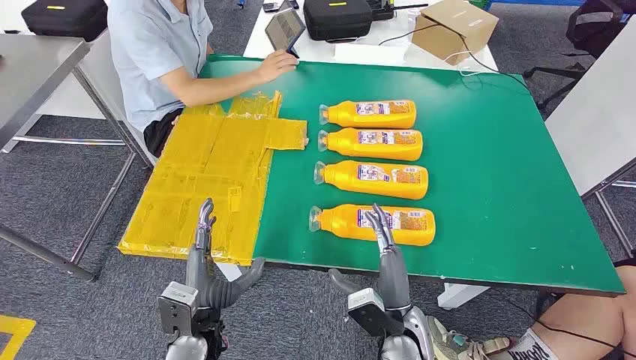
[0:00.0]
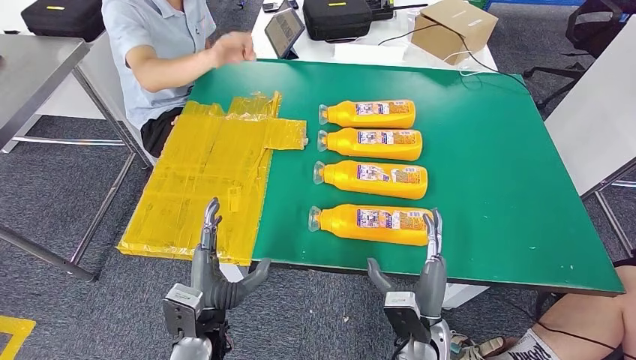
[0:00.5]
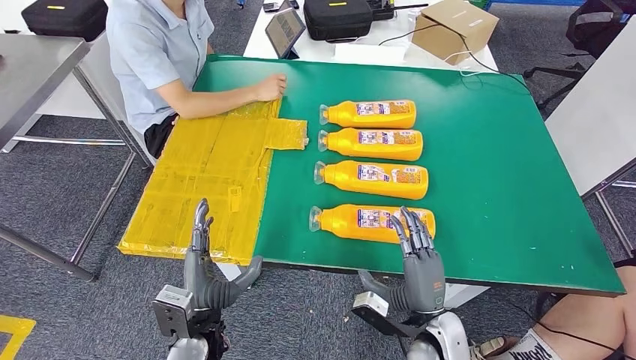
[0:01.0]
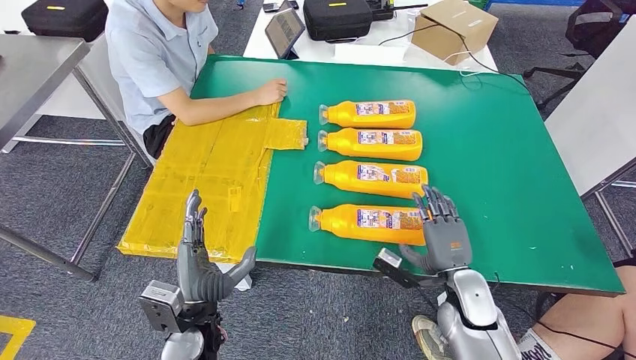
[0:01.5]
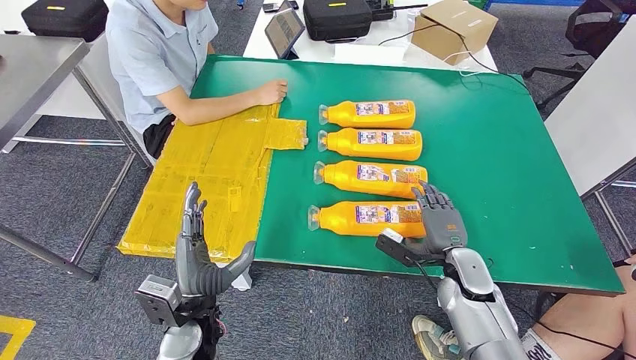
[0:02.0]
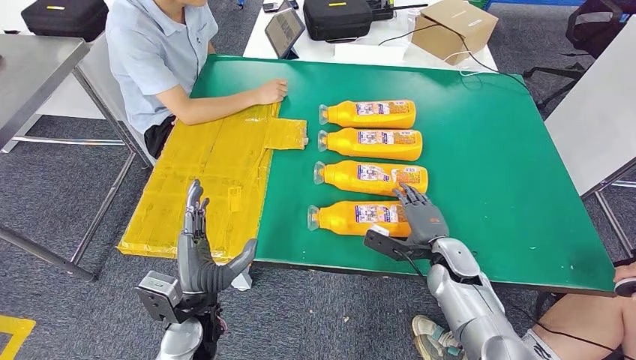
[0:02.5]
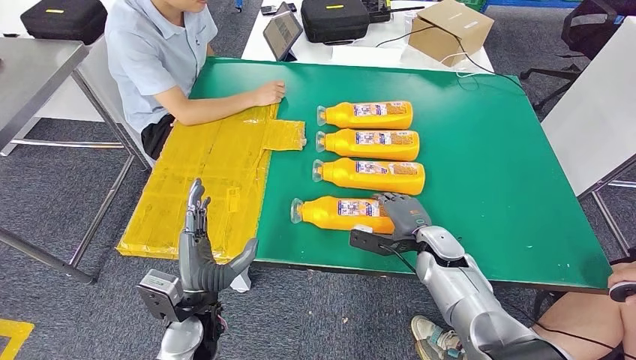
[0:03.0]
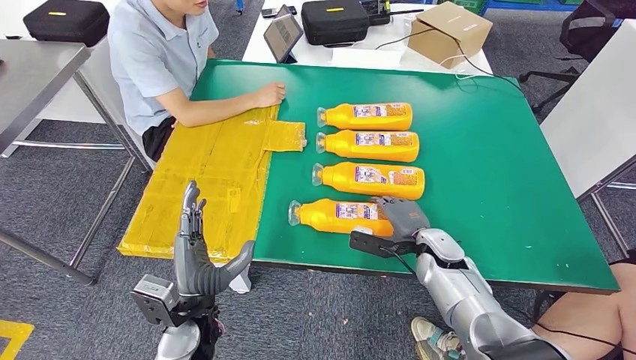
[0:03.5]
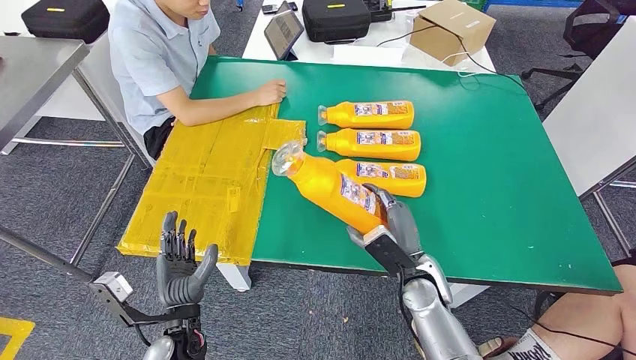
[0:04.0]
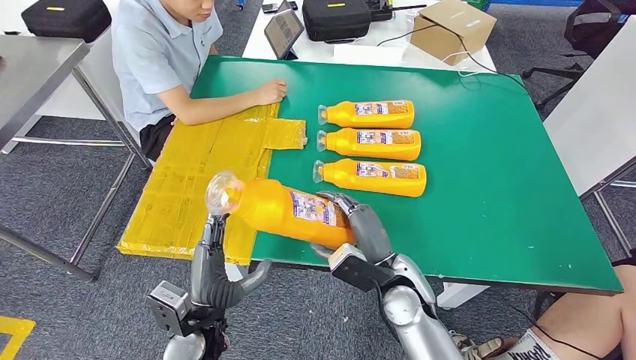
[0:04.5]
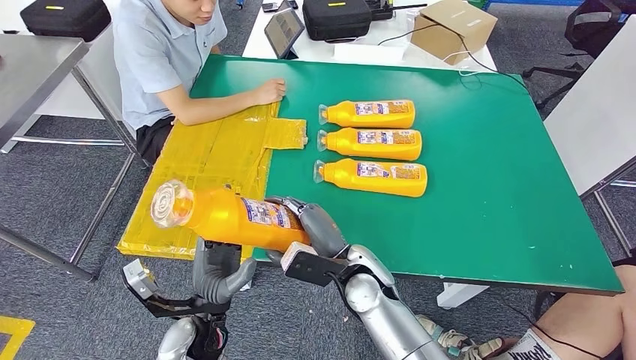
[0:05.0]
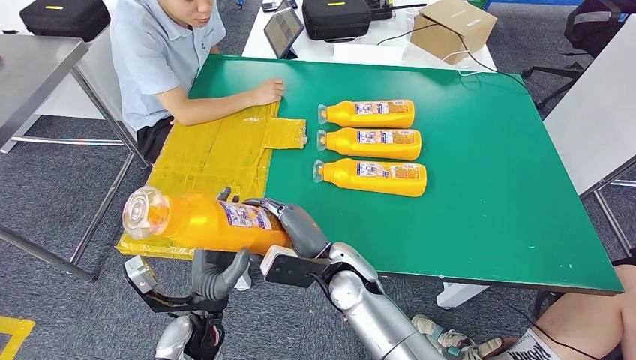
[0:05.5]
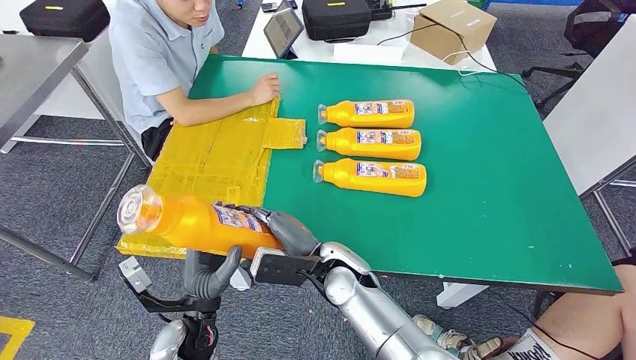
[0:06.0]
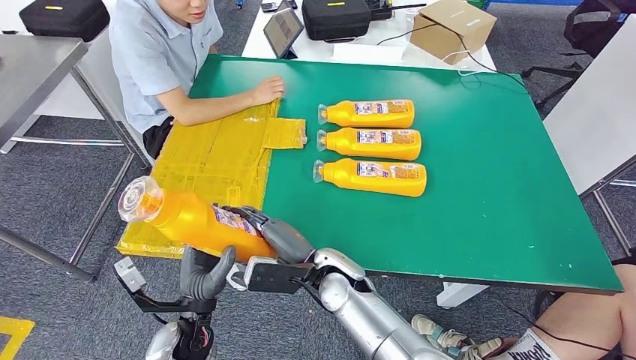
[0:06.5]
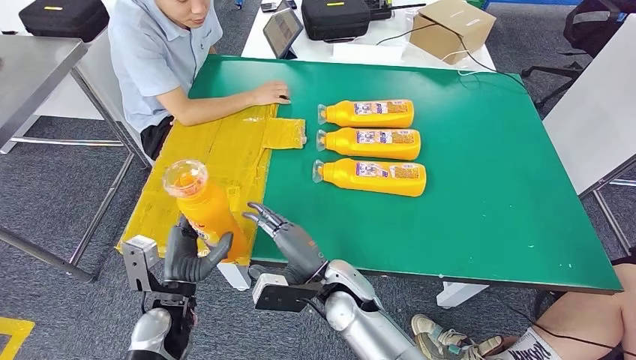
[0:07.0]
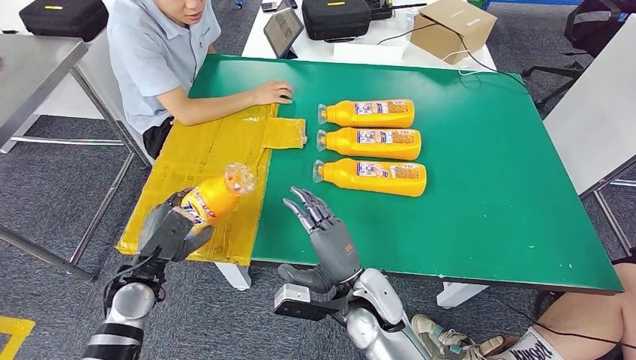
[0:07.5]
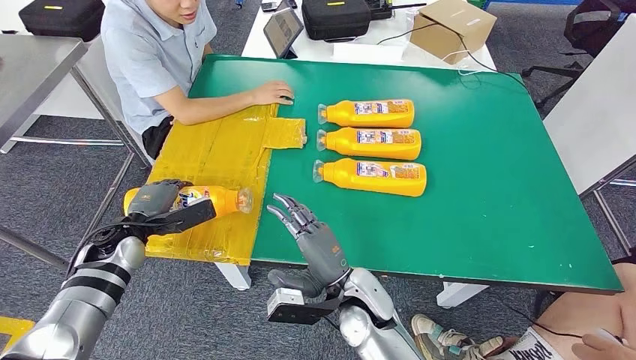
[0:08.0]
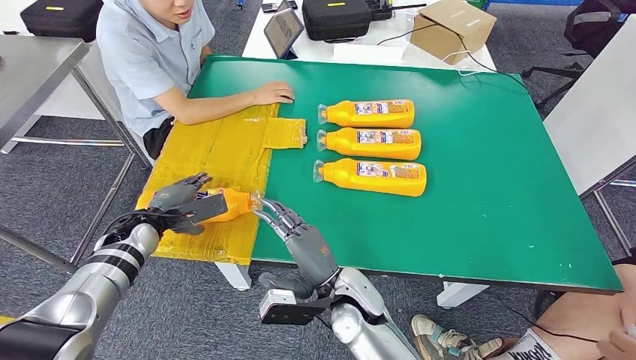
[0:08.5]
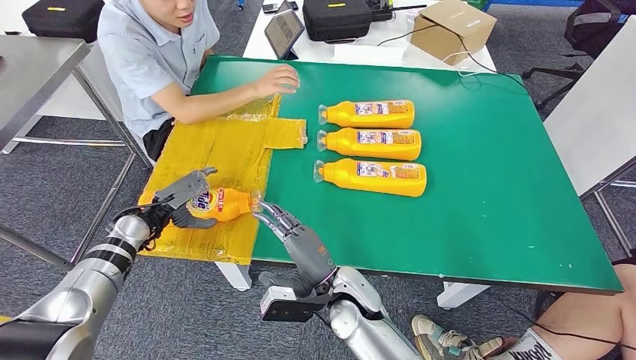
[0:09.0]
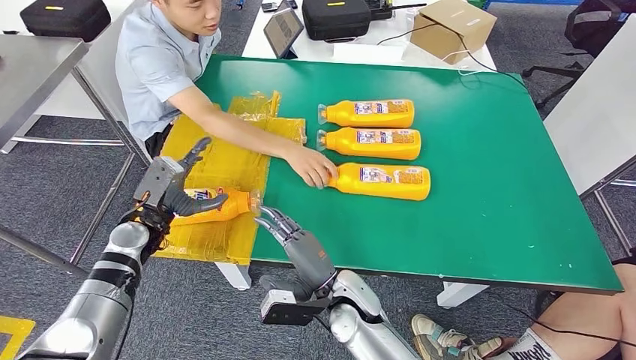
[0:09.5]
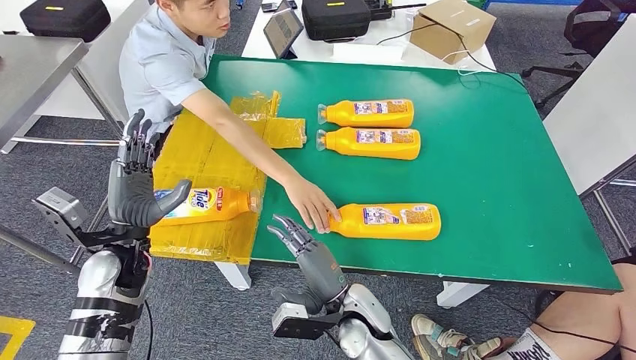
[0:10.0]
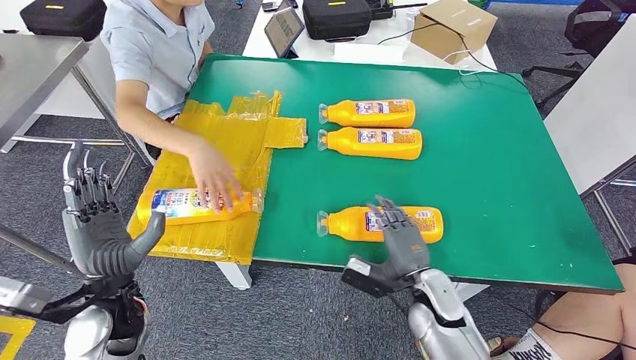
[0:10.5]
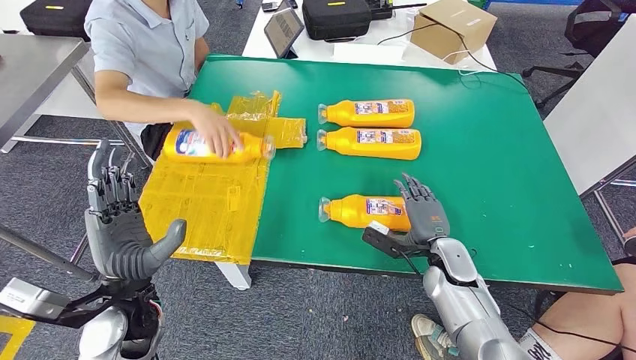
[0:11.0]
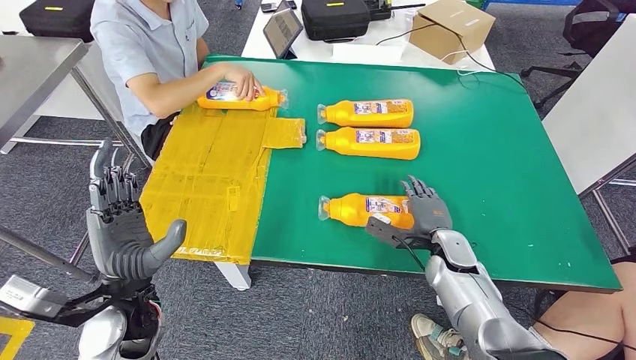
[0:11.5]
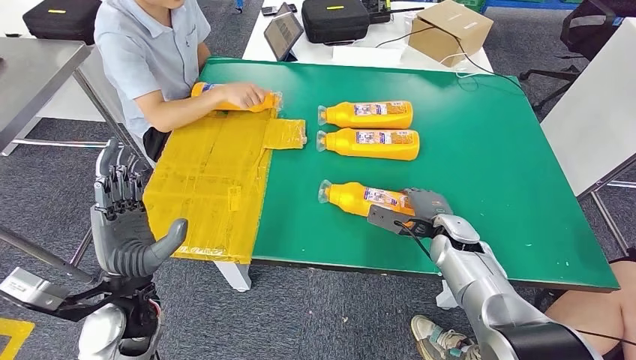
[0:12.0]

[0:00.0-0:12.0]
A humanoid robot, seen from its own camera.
Step, 0:00.0 to 0:04.0: Take the fast-moving consumer goods bottle from the table.
Step, 0:04.5 to 0:09.5: Flip the fast-moving consumer goods bottle to the front side.
0:02.0 to 0:04.0: The right hand travels to the left by some 10 cm.
0:04.0 to 0:06.0: The right hand heads to the left, covering roughly 15 cm.
0:06.0 to 0:08.0: The left hand shifts roughly 20 cm to the left and forward, while the right hand changes place by about 5 cm.

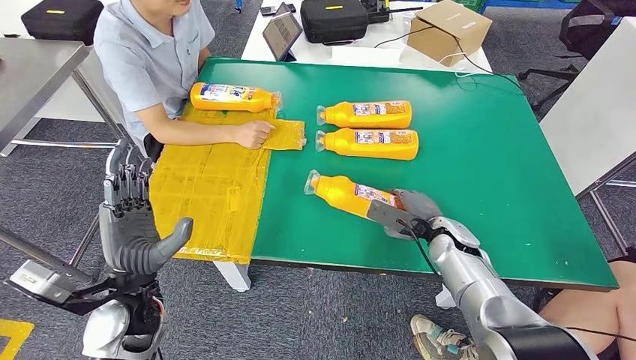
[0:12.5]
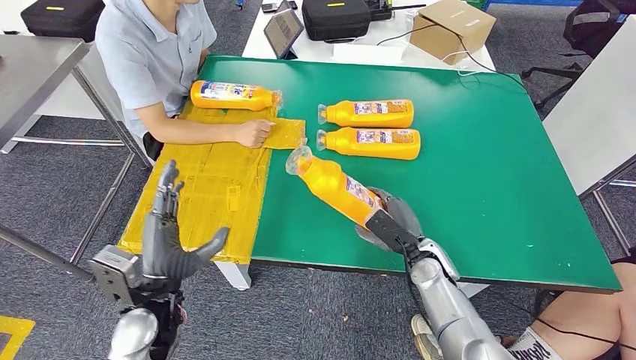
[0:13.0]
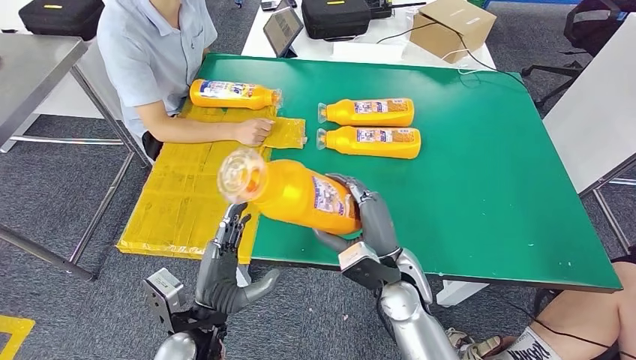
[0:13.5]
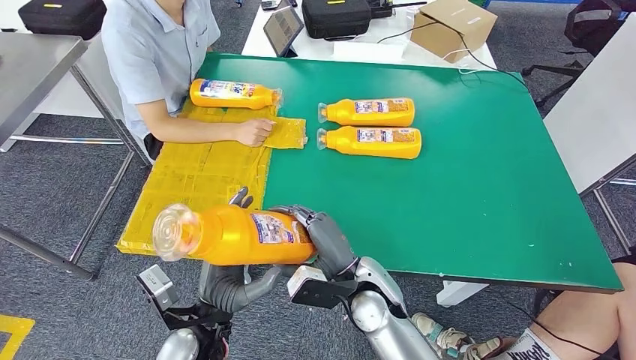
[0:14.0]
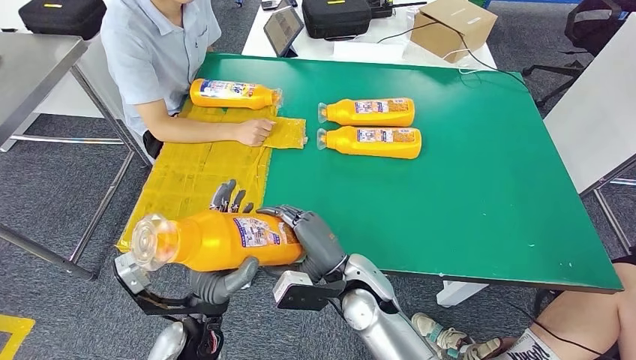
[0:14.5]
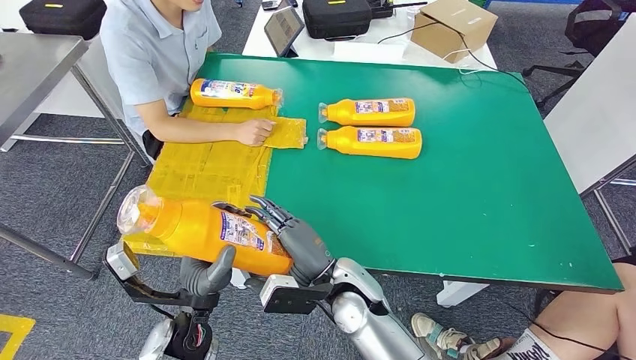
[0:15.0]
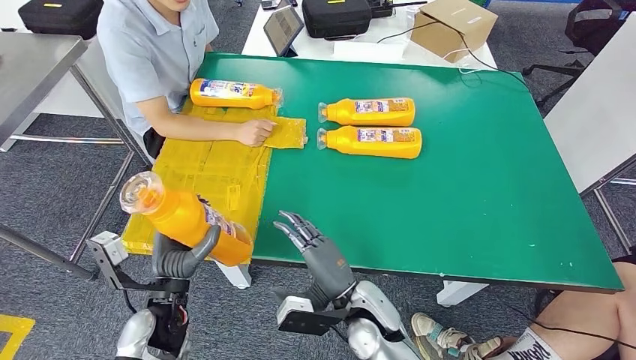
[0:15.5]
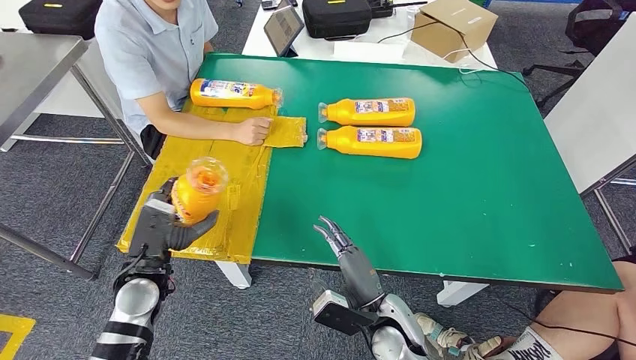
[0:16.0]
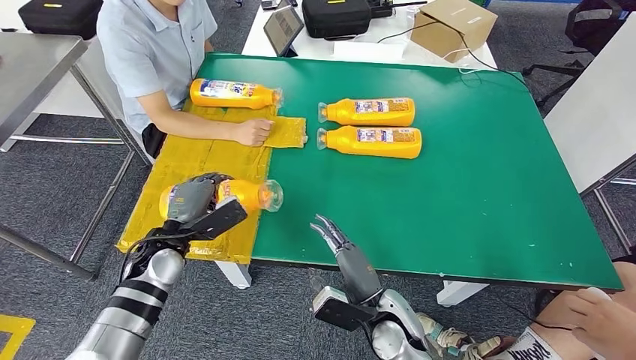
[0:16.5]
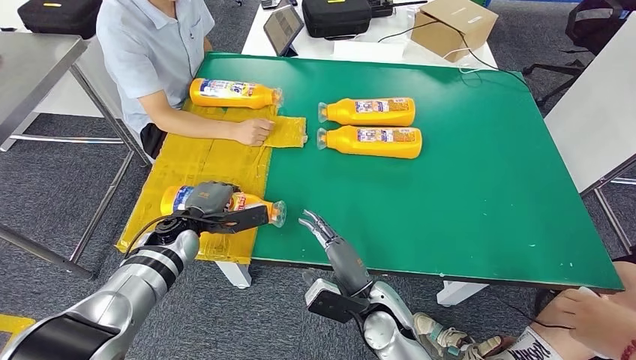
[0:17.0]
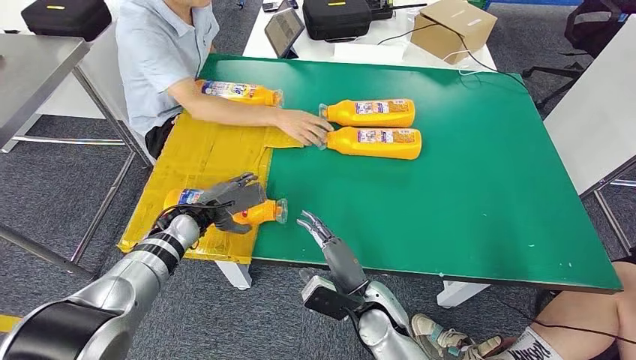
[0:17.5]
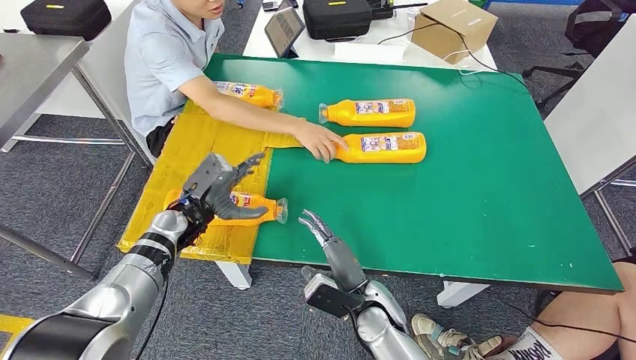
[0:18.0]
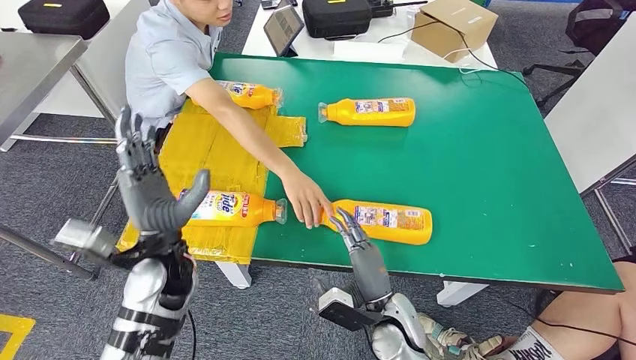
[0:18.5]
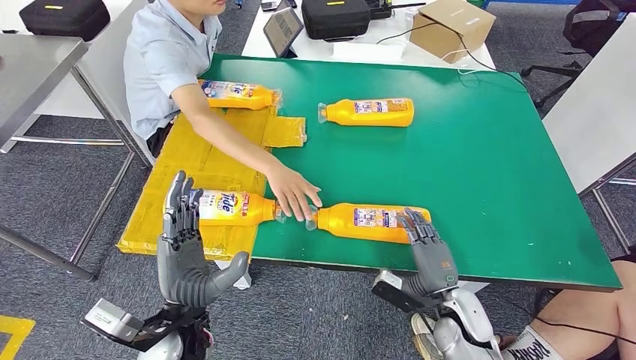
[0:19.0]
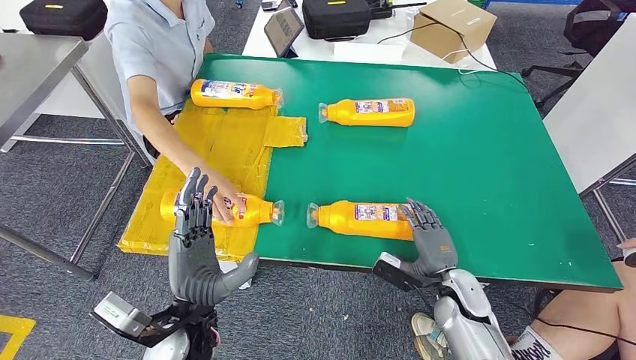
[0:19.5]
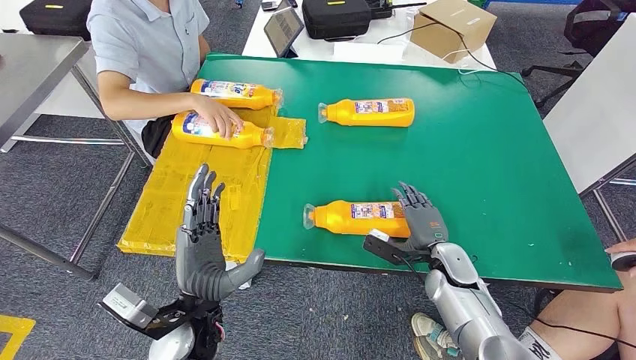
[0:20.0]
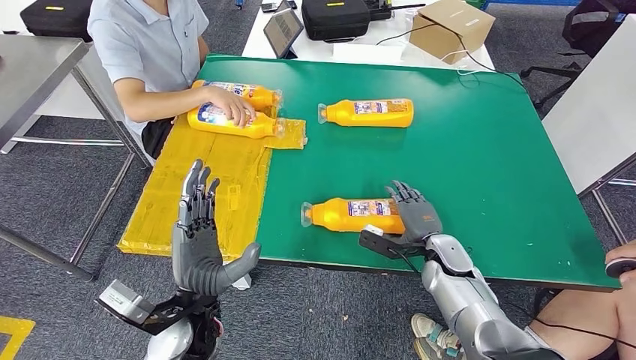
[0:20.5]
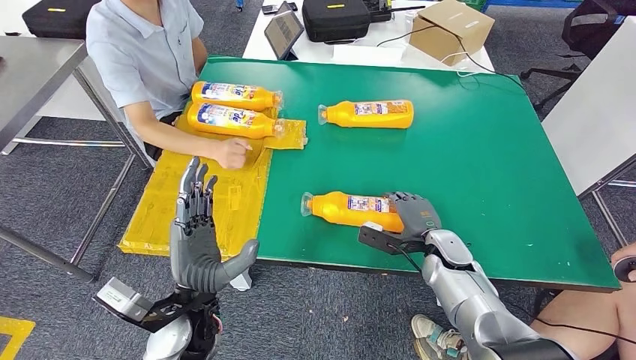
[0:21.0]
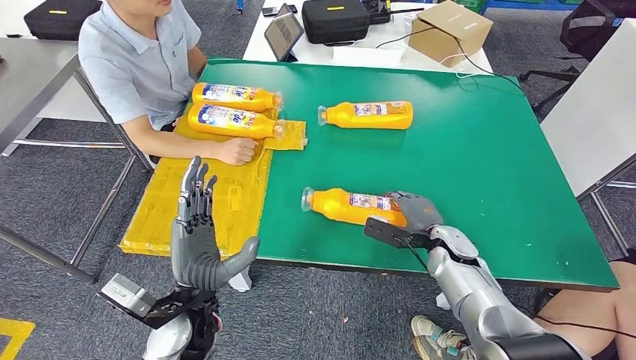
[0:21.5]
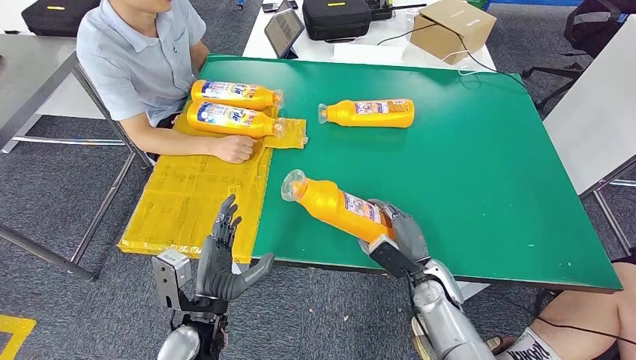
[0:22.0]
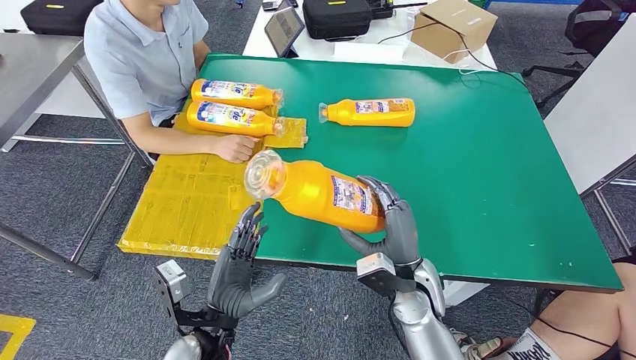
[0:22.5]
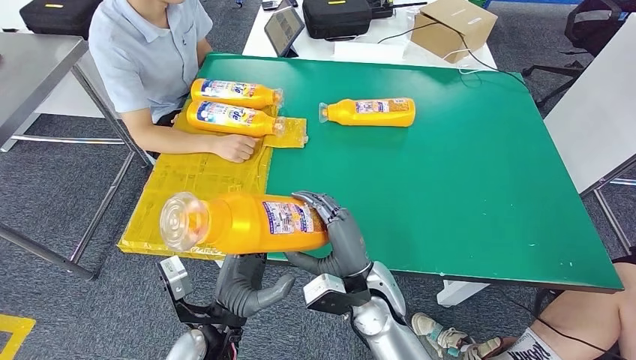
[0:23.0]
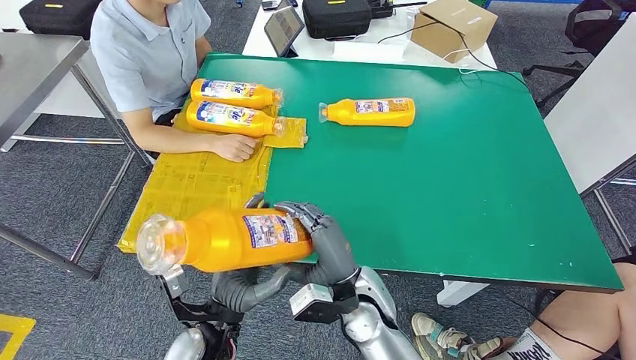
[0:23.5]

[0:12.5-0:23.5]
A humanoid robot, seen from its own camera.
Step, 0:12.5 to 0:14.5: Pick up the fast-moving consumer goods bottle from the table.
Step, 0:15.0 to 0:18.0: Flip the fast-moving consumer goods bottle to the front side.
0:14.5 to 0:16.0: The left hand is displaced to the left and forward by roughly 15 cm; the right hand travels downward and to the right by about 10 cm.
